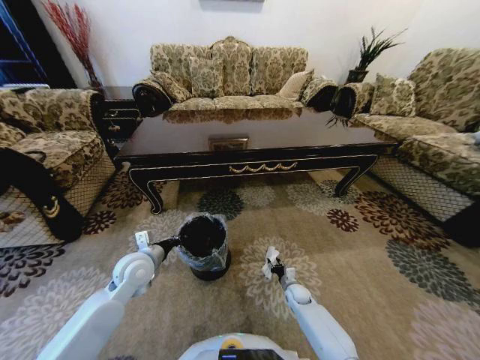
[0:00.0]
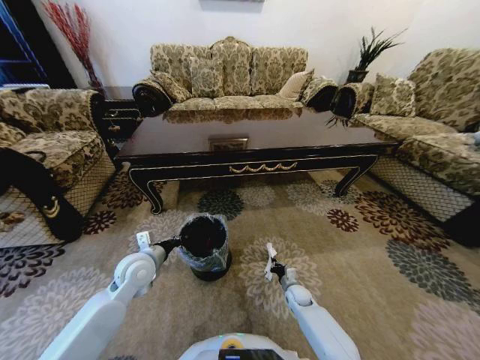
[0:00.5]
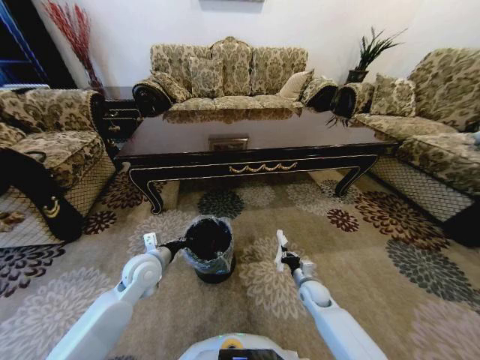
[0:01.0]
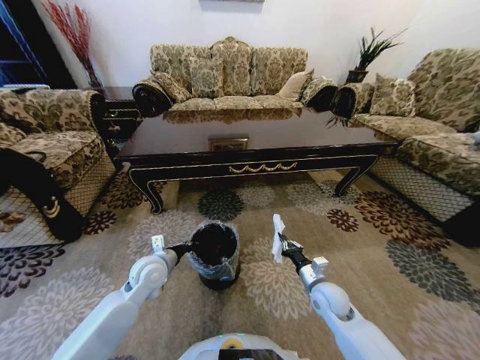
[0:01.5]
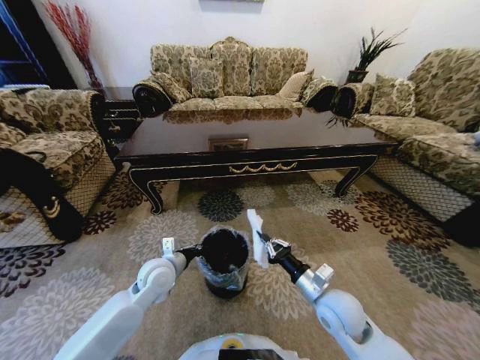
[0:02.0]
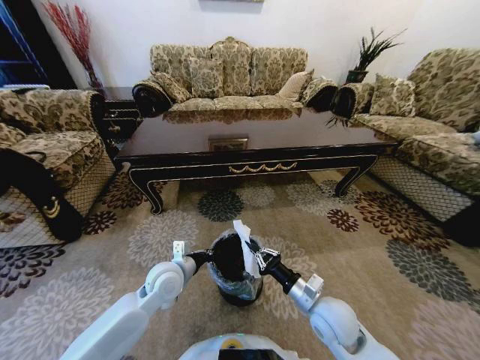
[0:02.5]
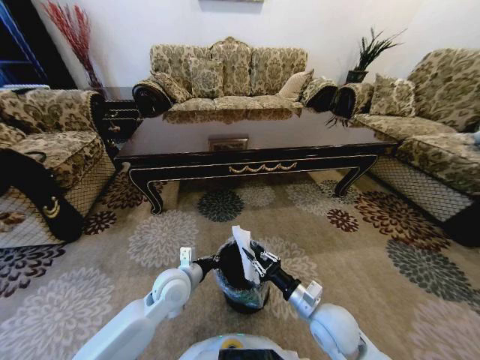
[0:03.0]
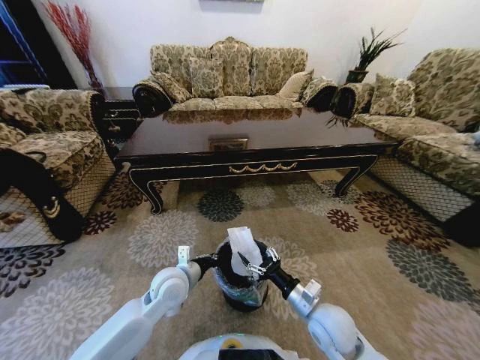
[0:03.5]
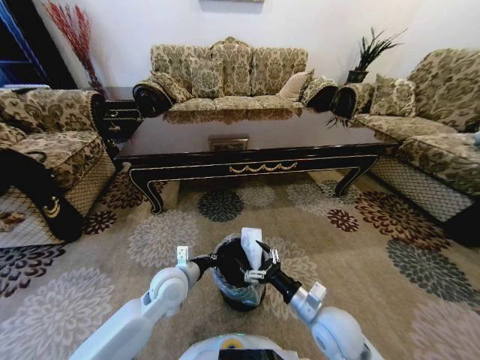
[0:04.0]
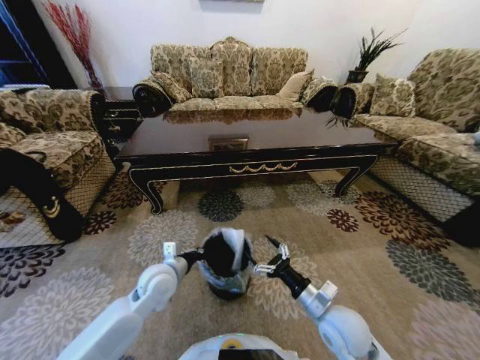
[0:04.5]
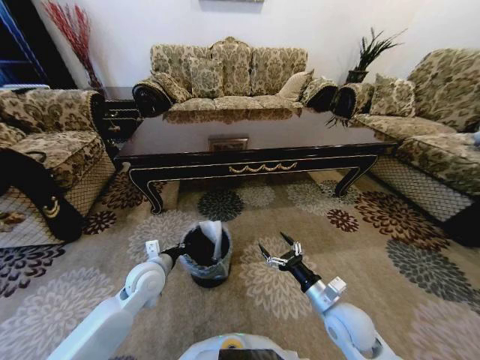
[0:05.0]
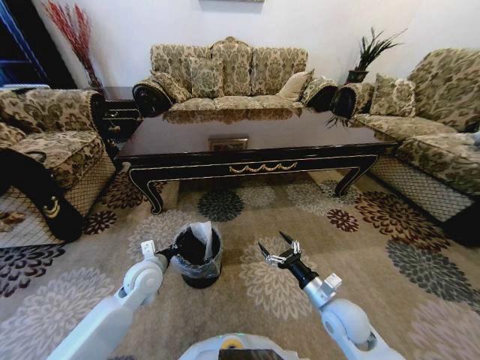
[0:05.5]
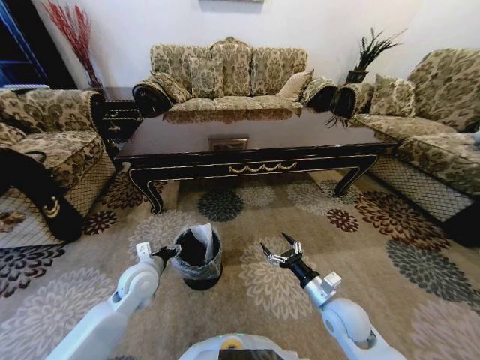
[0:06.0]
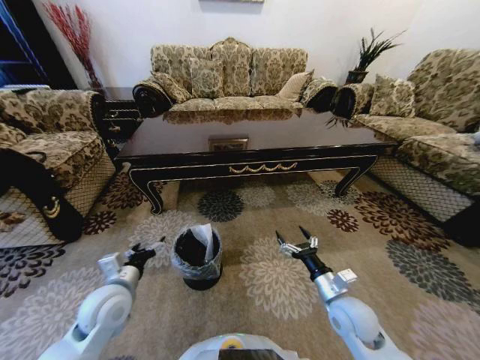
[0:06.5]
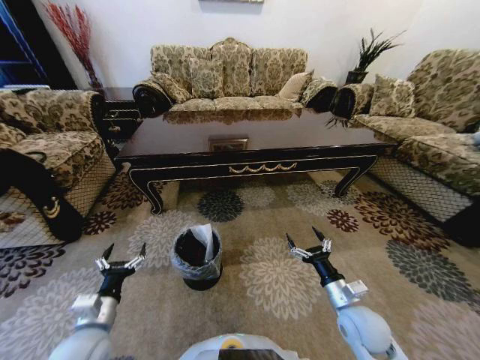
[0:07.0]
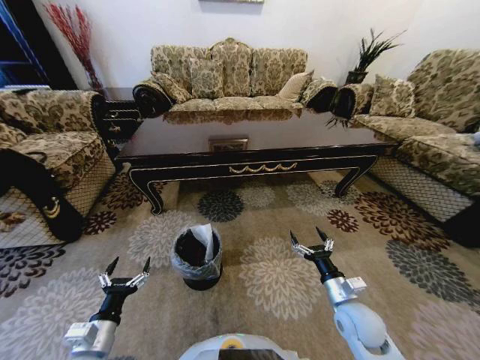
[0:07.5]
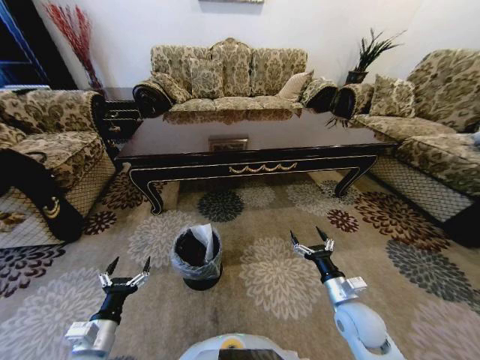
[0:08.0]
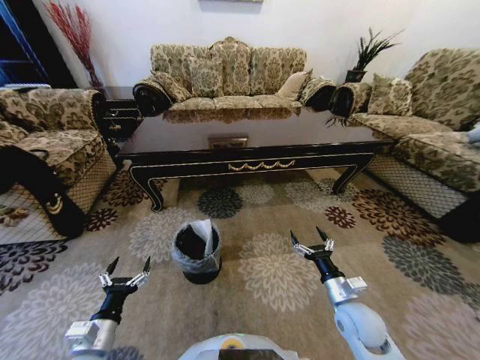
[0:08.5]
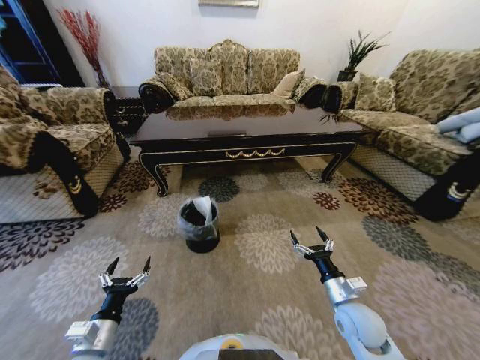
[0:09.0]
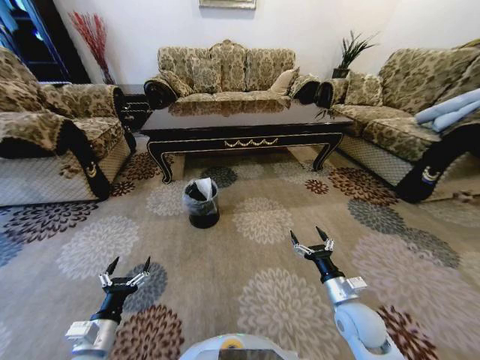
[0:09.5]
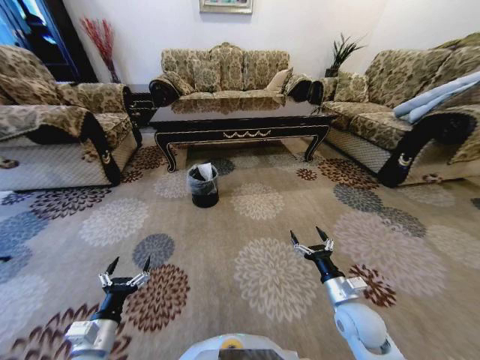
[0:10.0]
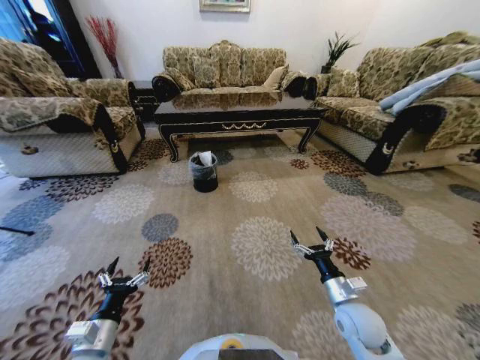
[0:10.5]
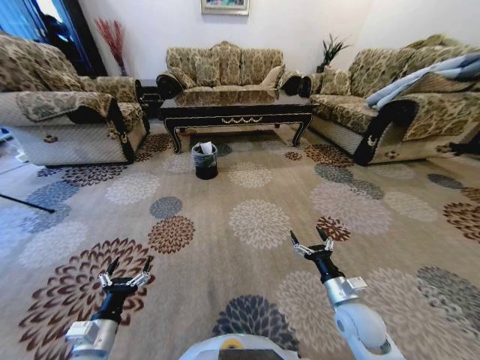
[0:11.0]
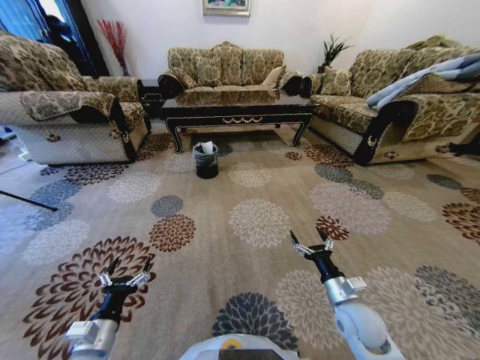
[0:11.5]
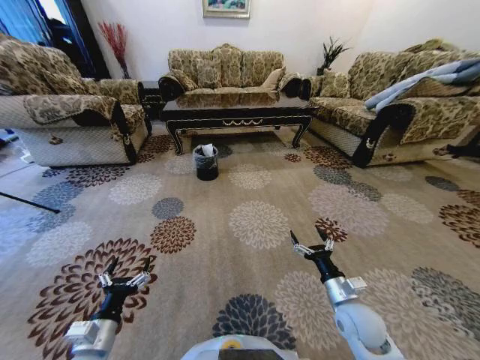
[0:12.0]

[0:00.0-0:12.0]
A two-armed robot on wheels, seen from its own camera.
Task of the whole recording: Move to the front of the table and pick up the trash from the floor, then place it into the trash bin.
0:00.0 to 0:02.0: The left gripper travels to the right by roughly 5 cm, while the right gripper heads upward and backward, covering approximately 30 cm, and closes its fingers.
0:02.0 to 0:04.0: The right gripper opens up.
0:04.0 to 0:06.0: The left gripper heads to the left, covering about 10 cm, and opens up. The right gripper shifts approximately 5 cm to the right.
0:06.0 to 0:08.0: The left gripper shifts roughly 20 cm backward, and opens its fingers.
